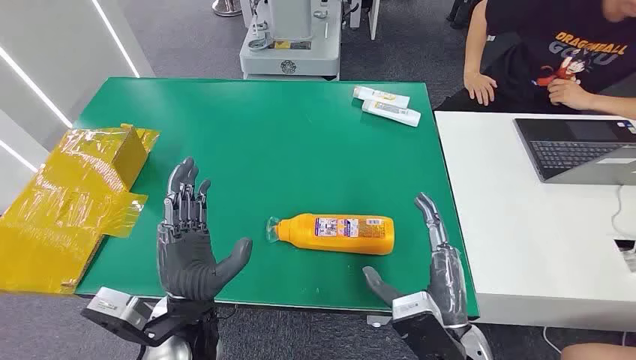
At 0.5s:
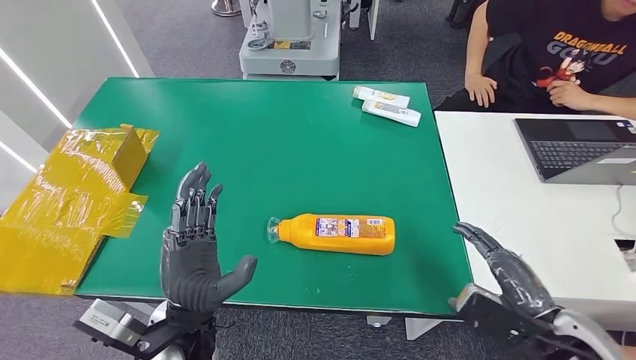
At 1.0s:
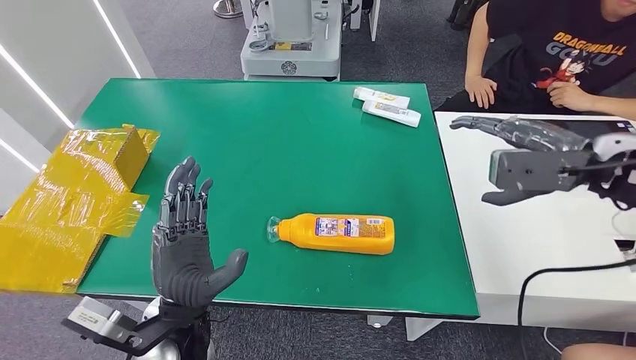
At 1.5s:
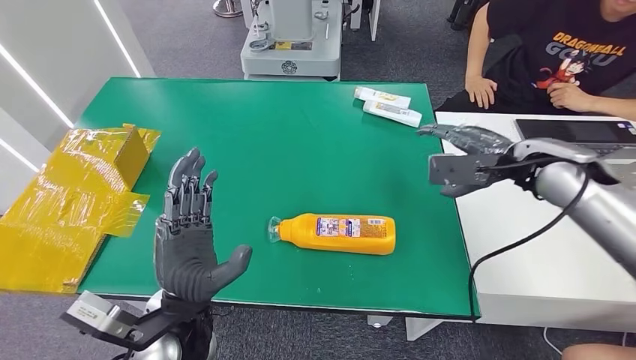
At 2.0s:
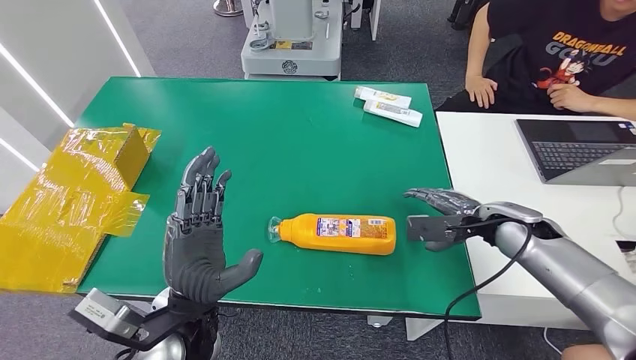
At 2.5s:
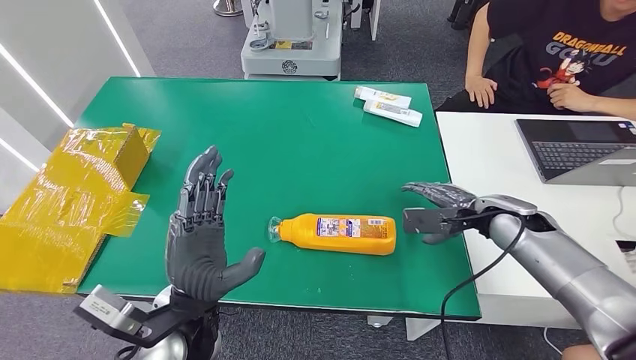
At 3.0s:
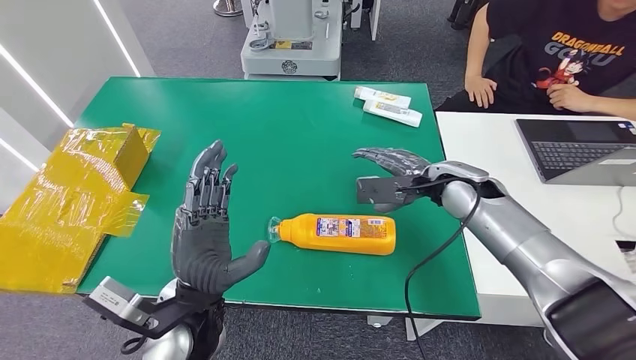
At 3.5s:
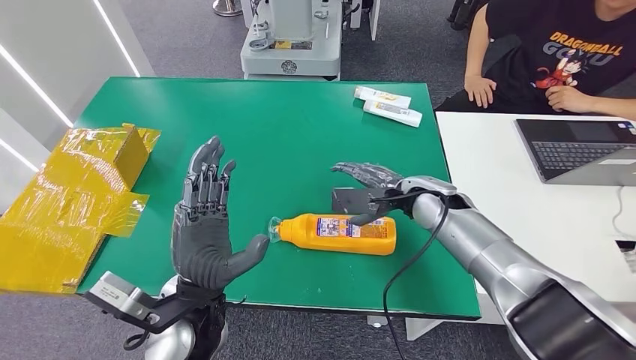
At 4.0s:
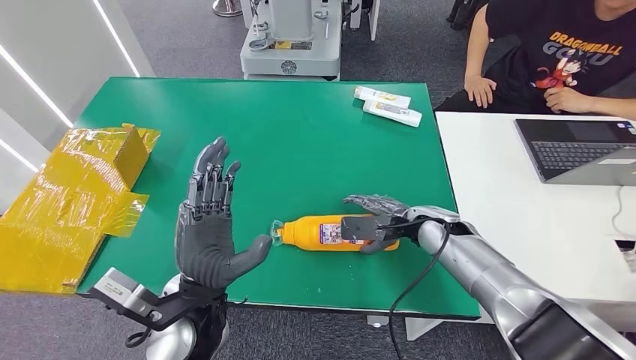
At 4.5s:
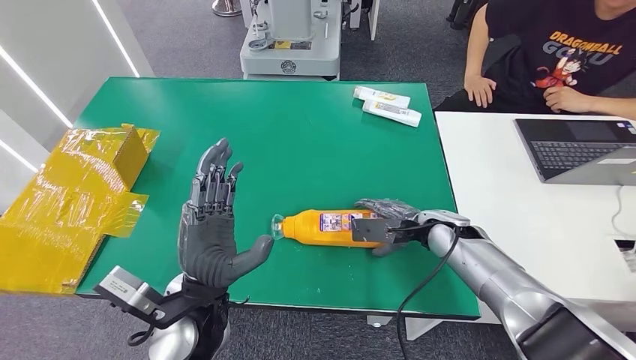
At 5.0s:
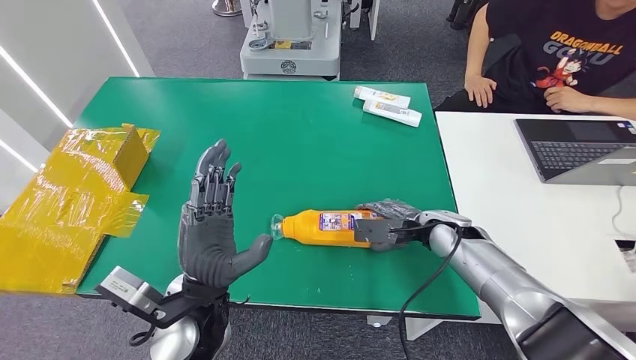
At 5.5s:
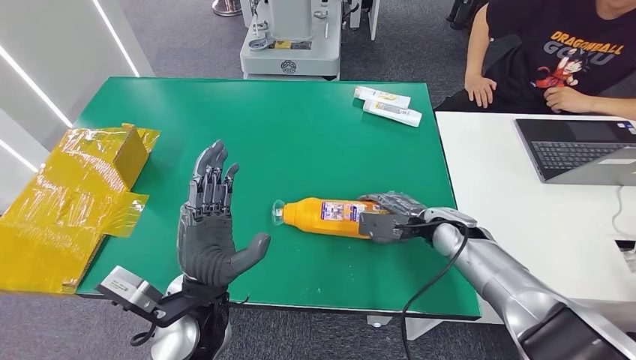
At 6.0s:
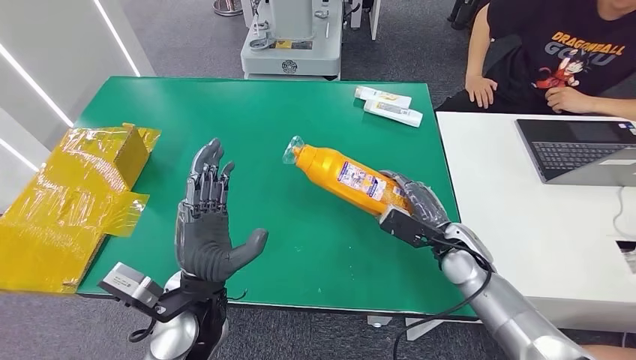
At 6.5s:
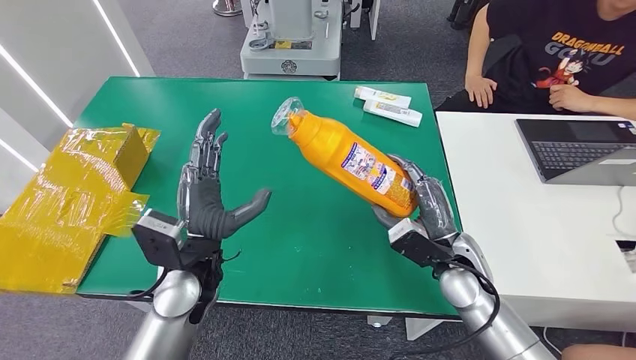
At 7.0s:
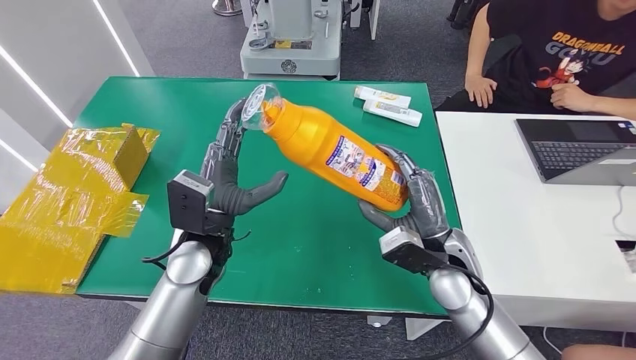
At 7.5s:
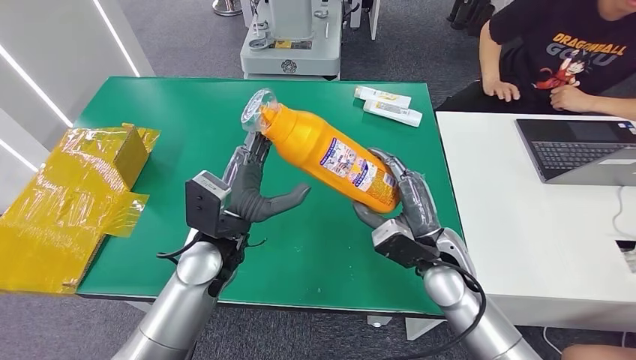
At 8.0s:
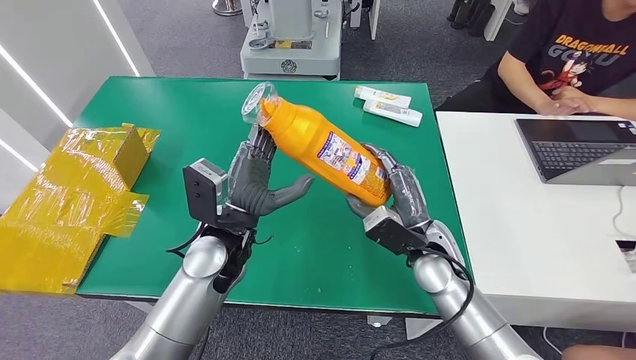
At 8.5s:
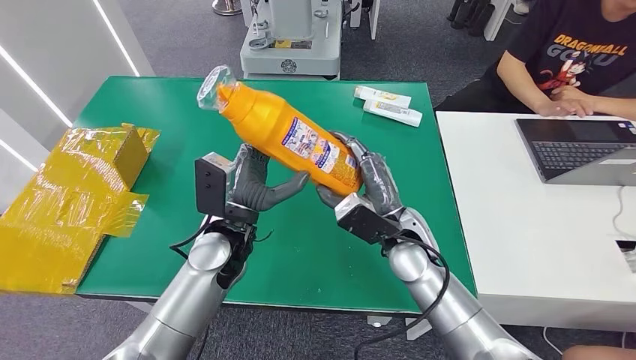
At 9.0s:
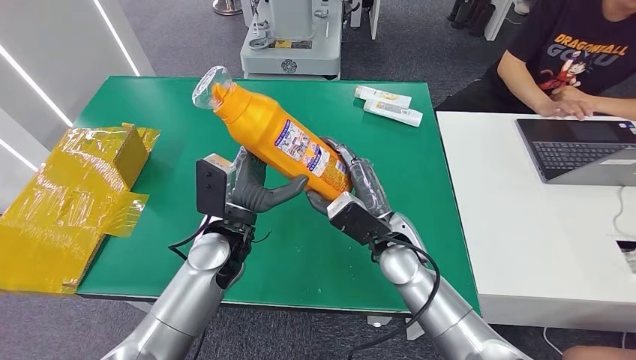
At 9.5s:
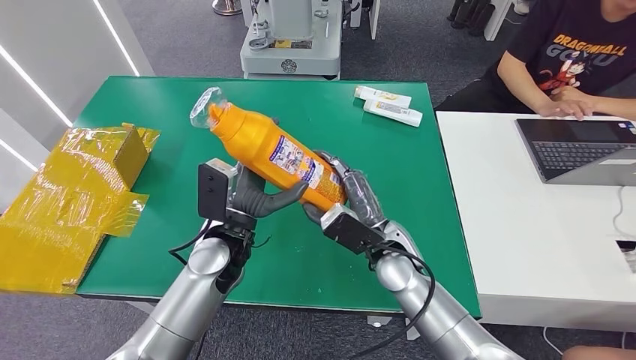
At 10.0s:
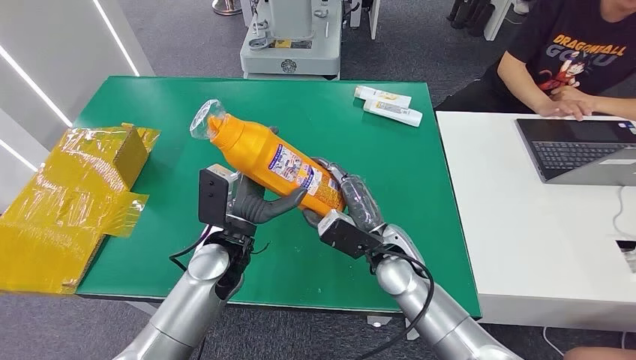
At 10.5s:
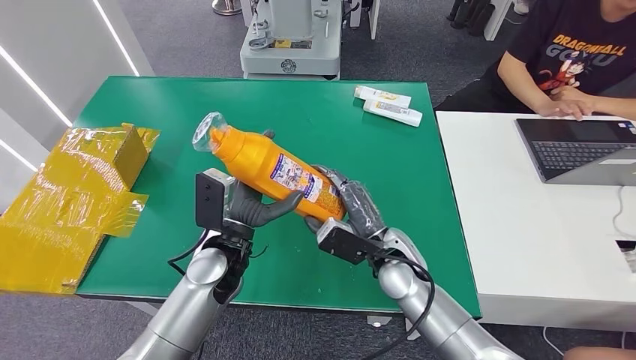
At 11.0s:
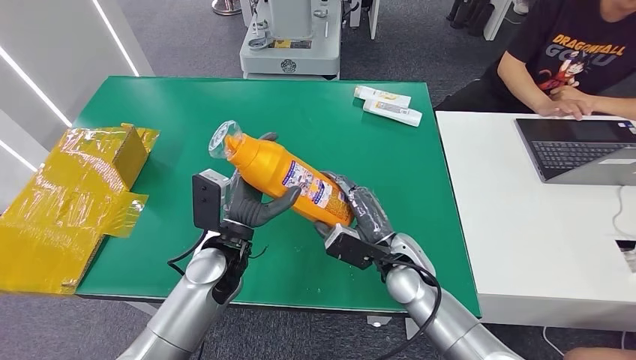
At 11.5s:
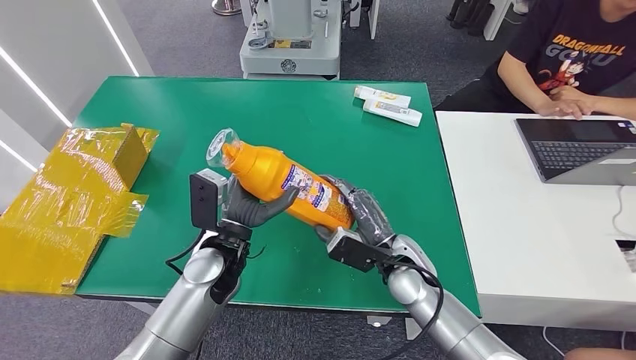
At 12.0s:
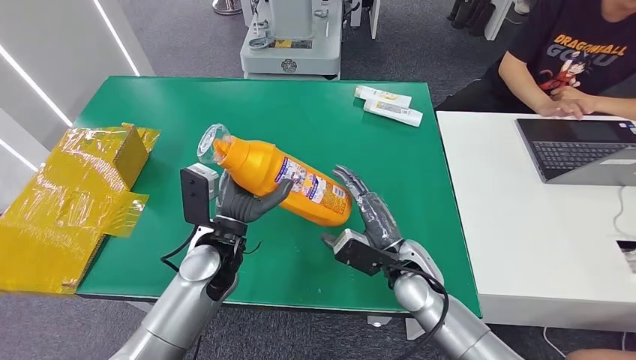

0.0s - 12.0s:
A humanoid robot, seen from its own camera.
Step, 0.0s - 6.5s: Pick up the bottle from the table.
2.0s - 4.0s: The right hand shifts about 10 cm to the left.
4.0s - 6.0s: The right hand ends up about 5 cm from where it was.
6.0s - 8.0s: The right hand shifts approximately 10 cm to the left, while the left hand is displaced forward by roughly 10 cm.
8.0s - 10.0s: The right hand travels to the left by some 5 cm.
10.0s - 12.0s: The hands move only a little.

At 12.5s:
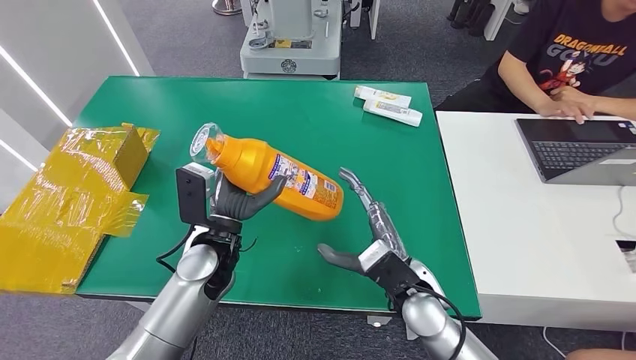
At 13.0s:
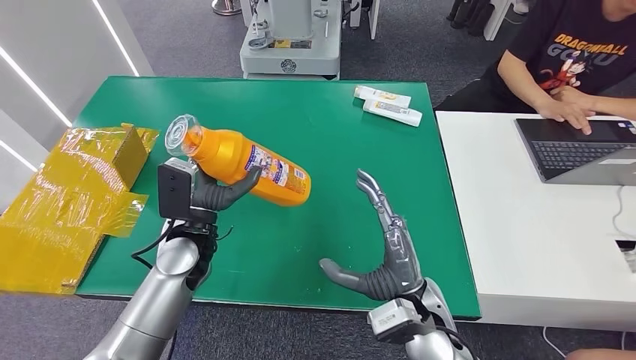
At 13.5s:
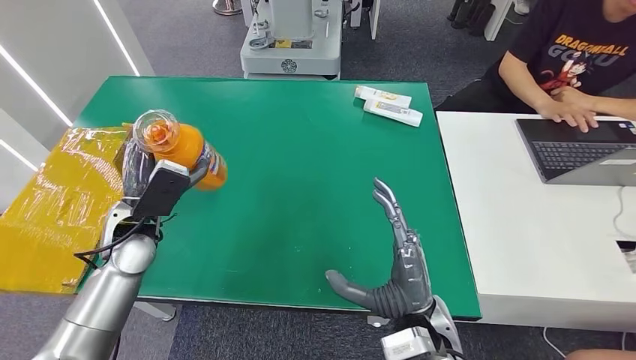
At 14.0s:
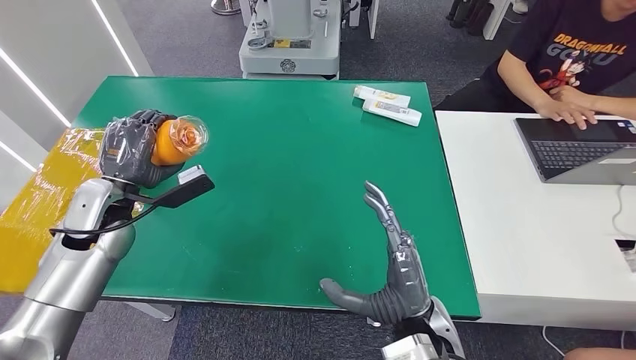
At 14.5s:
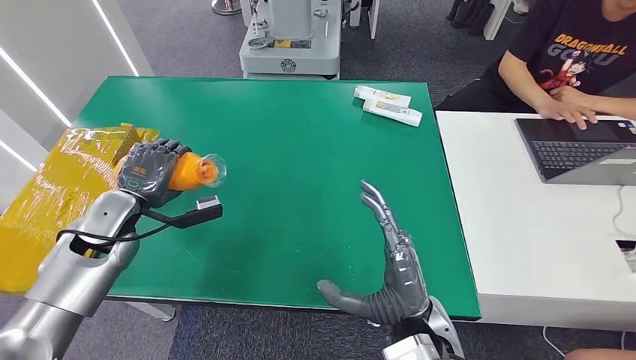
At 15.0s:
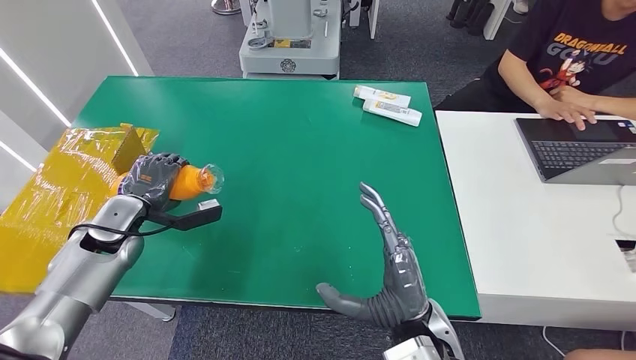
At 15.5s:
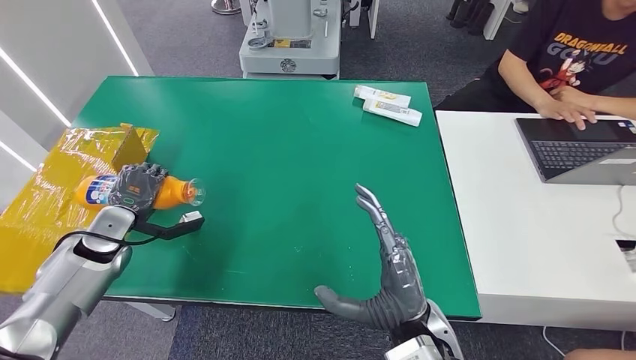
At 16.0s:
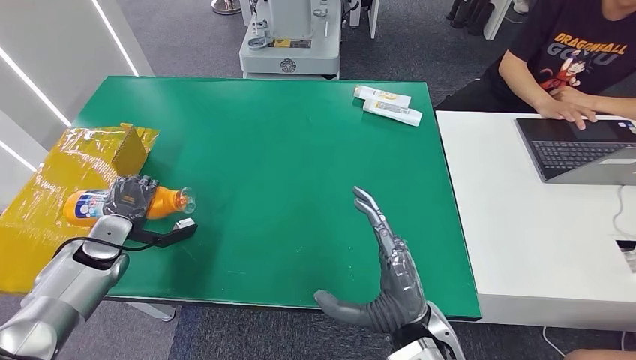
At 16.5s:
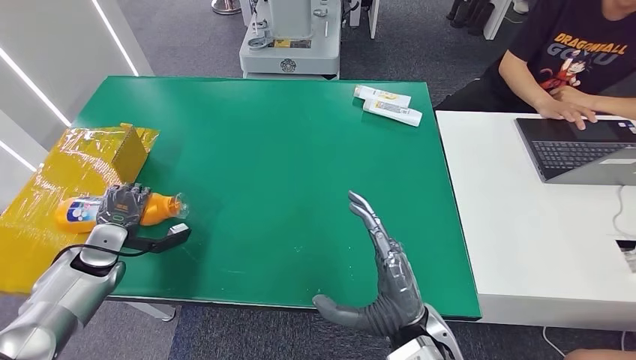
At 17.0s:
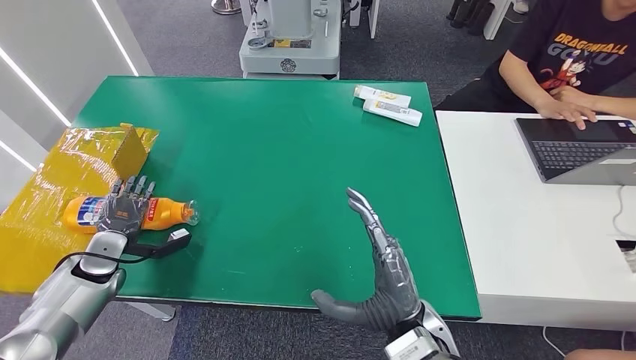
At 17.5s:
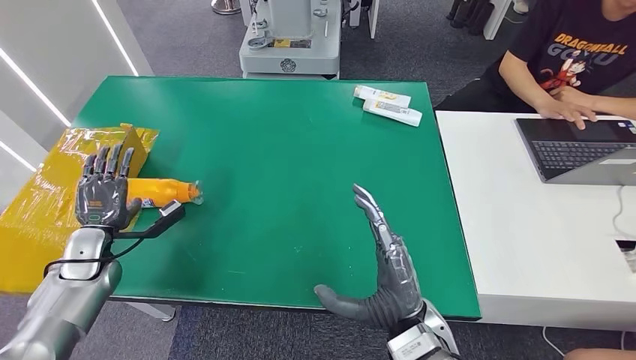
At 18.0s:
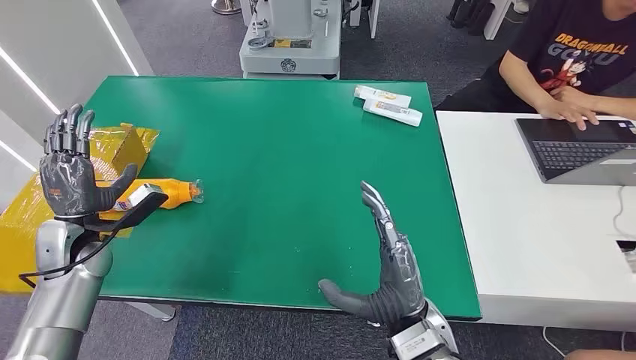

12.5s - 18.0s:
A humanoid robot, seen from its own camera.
Step, 12.5s - 17.5s: Turn the bottle to the front side.
12.5s - 14.5s: The right hand shifts roughly 10 cm backward; the left hand travels to the left by approximately 20 cm.
14.5s - 16.0s: The left hand travels downward and to the left by about 10 cm.
16.0s - 18.0s: The left hand changes place by approximately 5 cm.

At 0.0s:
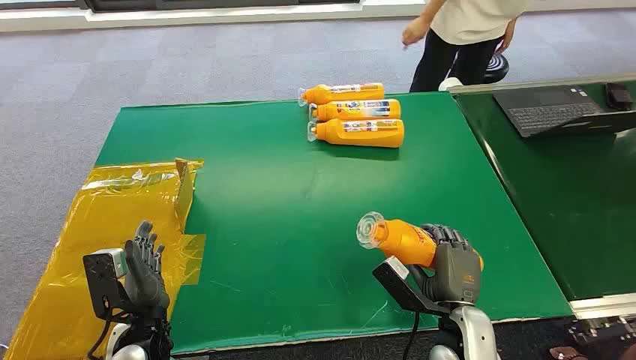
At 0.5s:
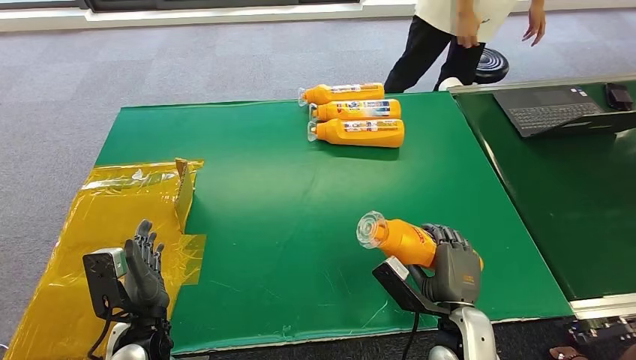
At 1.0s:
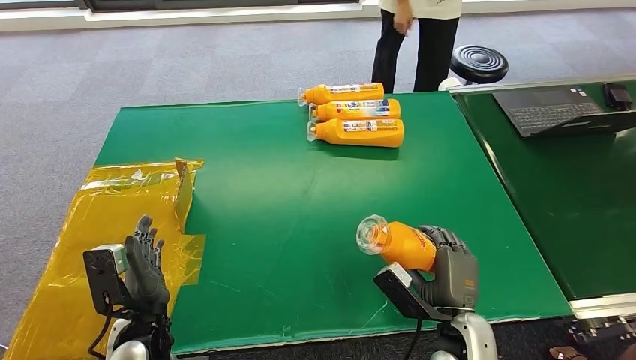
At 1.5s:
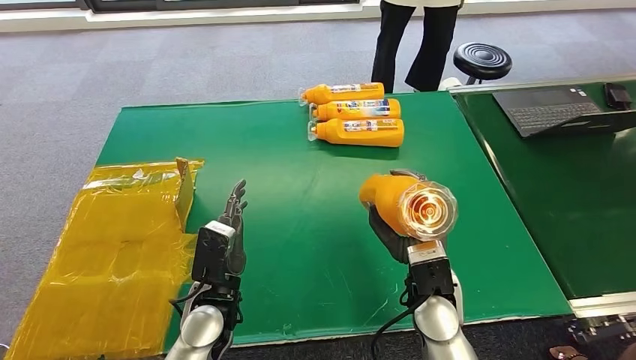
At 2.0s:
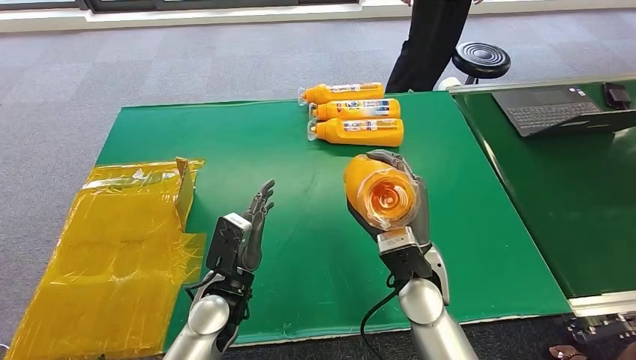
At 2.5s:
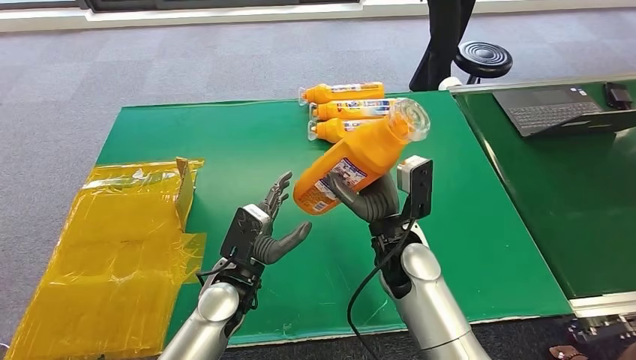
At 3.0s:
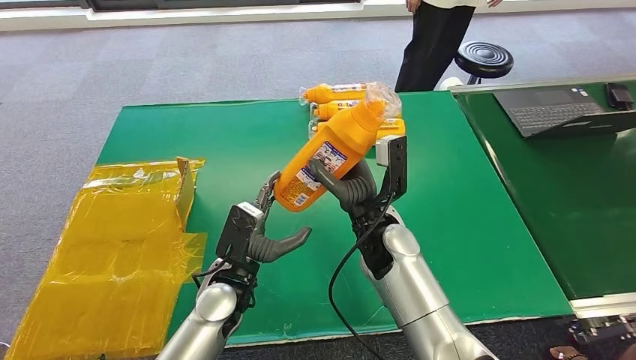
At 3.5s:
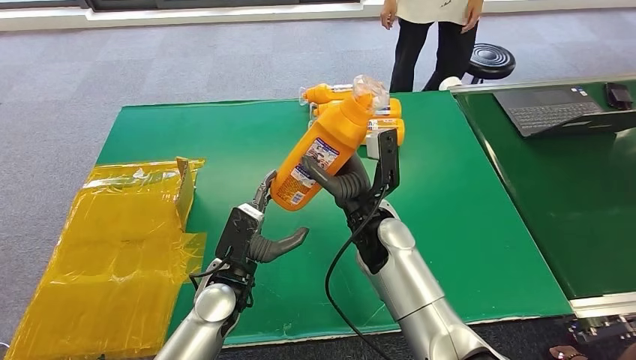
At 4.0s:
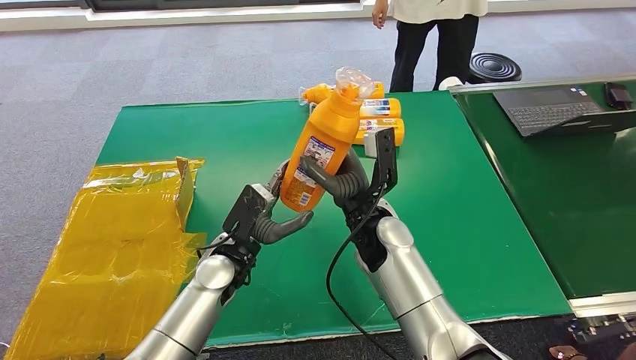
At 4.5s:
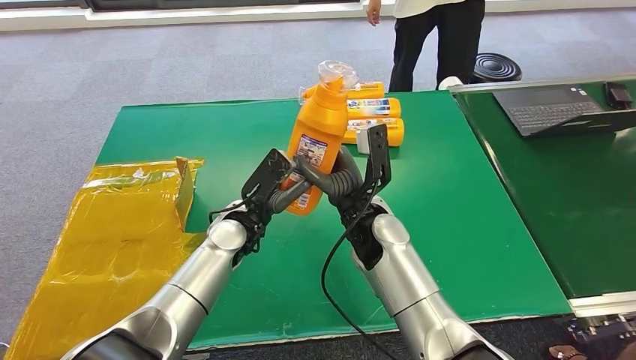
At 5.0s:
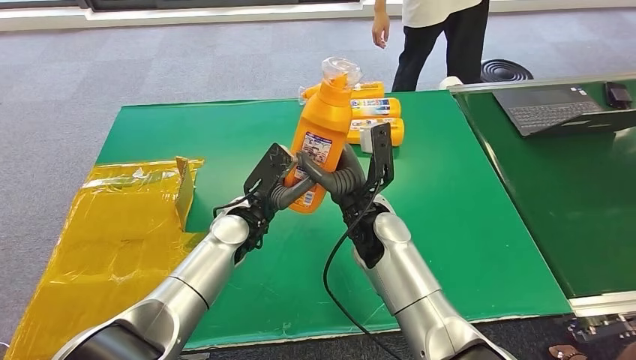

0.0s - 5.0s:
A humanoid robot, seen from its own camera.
Step, 0.0s - 1.5s: Pick up the bottle from the table.
